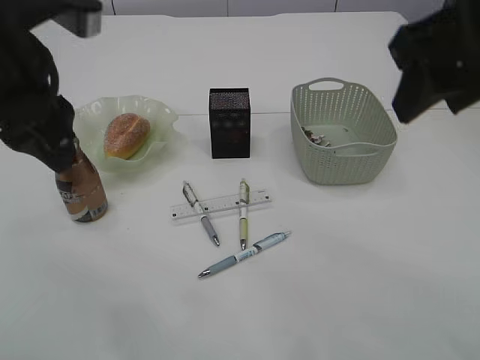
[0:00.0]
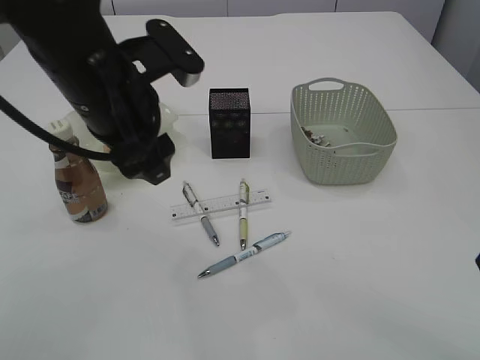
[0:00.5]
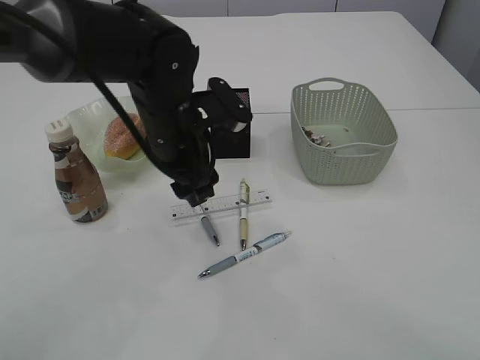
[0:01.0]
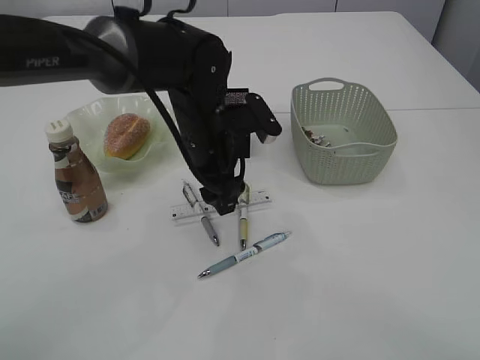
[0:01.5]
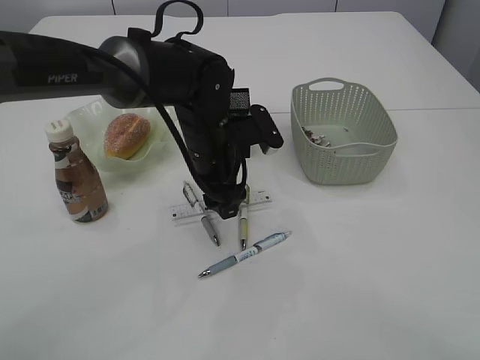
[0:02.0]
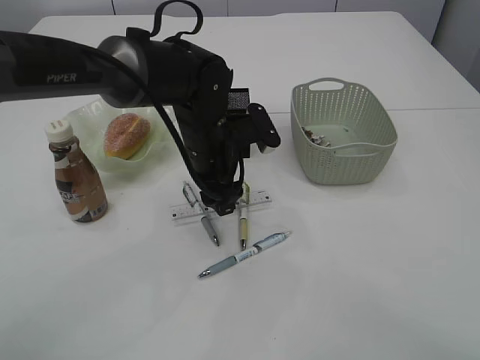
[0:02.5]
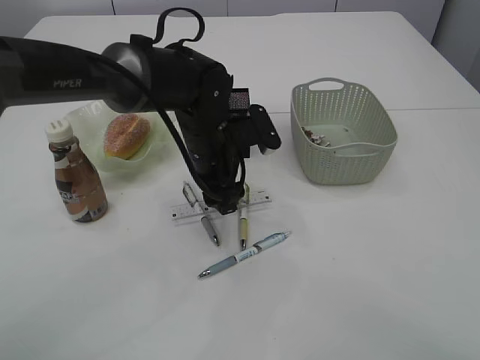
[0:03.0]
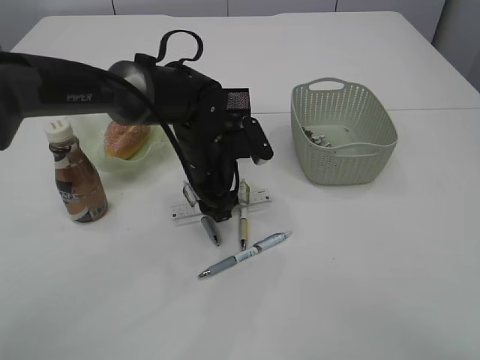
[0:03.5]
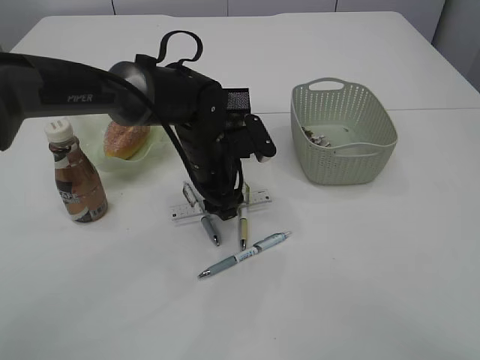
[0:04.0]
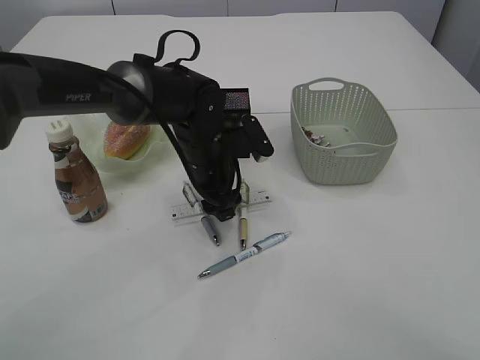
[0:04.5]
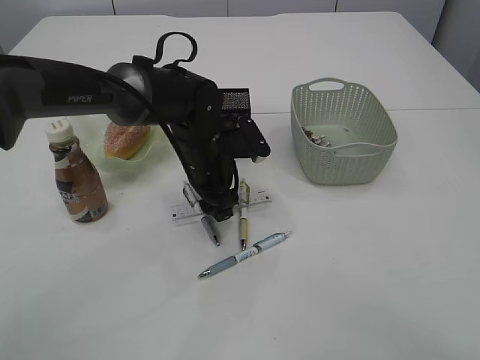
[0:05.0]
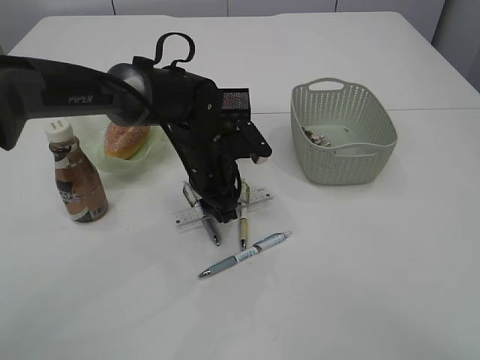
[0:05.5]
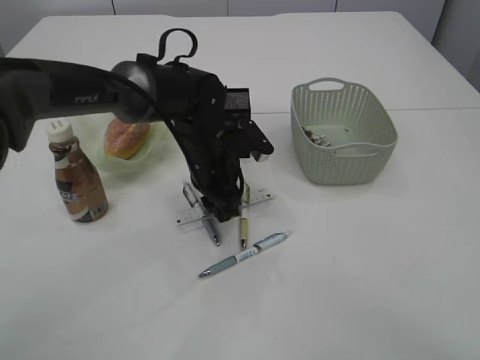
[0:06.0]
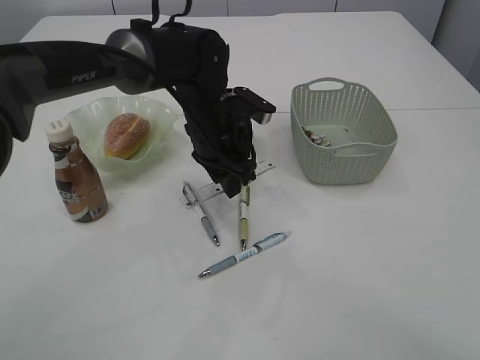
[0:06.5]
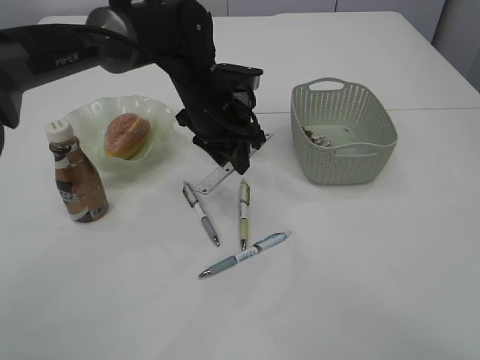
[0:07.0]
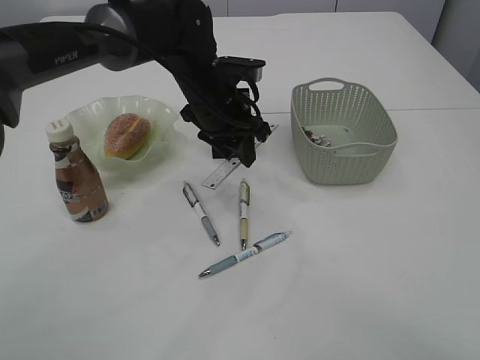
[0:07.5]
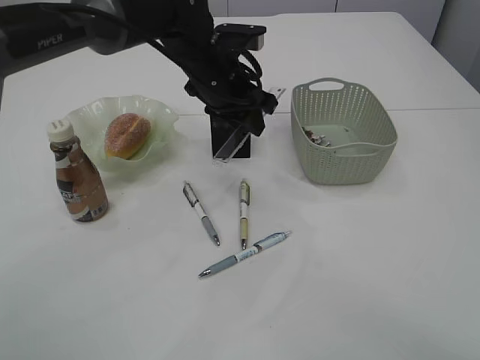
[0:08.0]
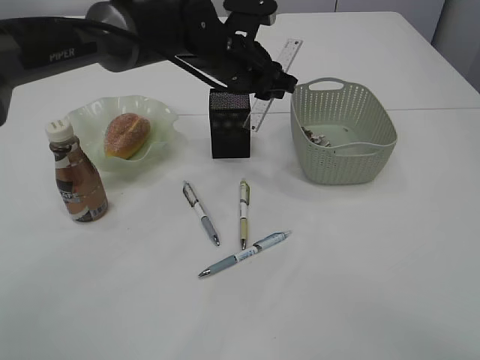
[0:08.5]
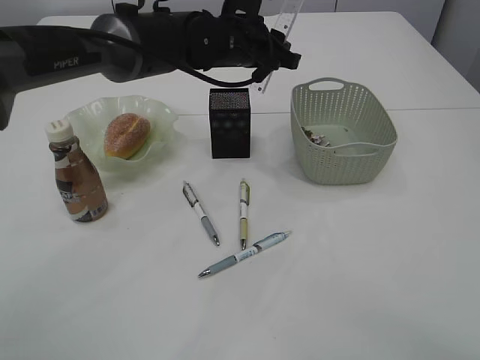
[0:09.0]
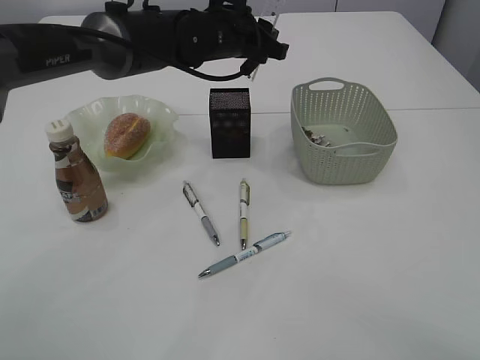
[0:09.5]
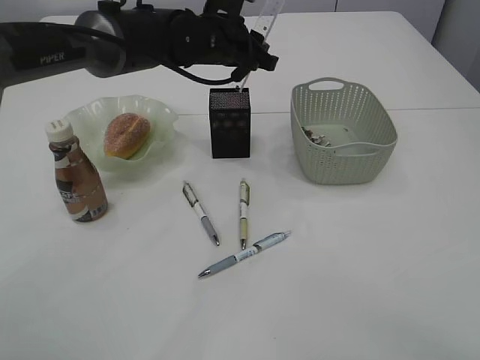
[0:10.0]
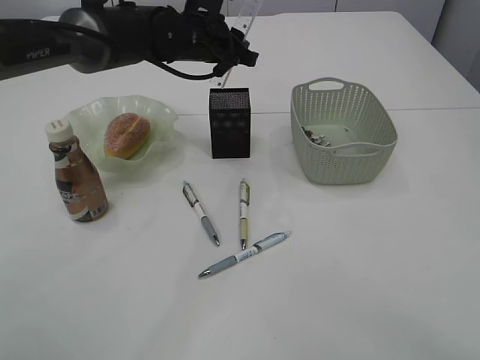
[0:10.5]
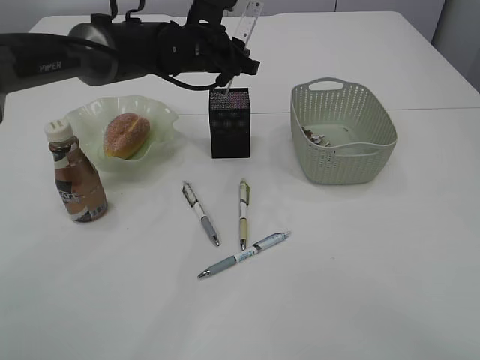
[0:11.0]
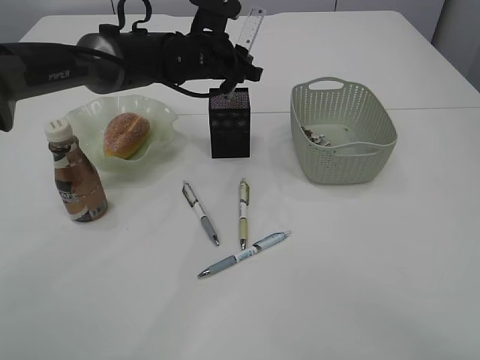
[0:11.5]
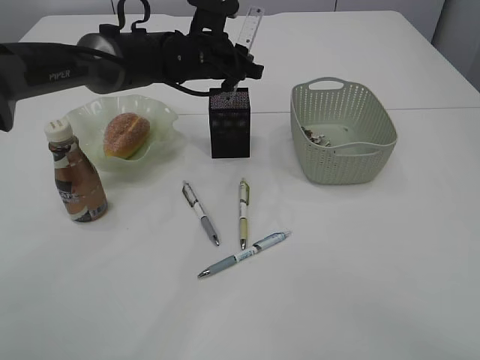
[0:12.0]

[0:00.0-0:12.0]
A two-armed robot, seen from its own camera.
Step, 0:00.0 to 0:06.5: pick up the ruler.
0:00.0 to 0:02.0: The right gripper shifts about 15 cm backward and to the right, while the left gripper shifts approximately 25 cm downward, to the right and forward.
0:02.0 to 0:04.0: There are only small adjustments of the grippers.
0:04.0 to 0:06.0: The left gripper closes its fingers.
0:06.0 to 0:08.0: The left gripper travels upward by approximately 10 cm.
0:10.0 to 0:12.0: The grippers stay close to where they were, moving slightly.

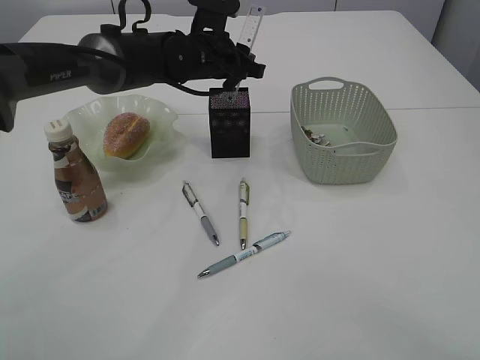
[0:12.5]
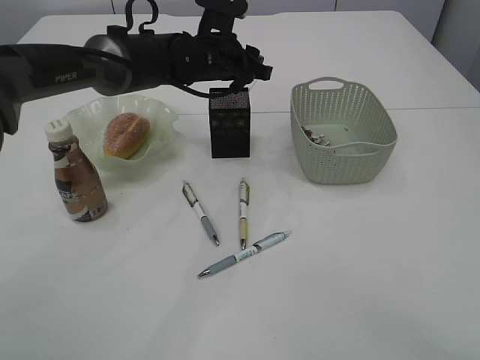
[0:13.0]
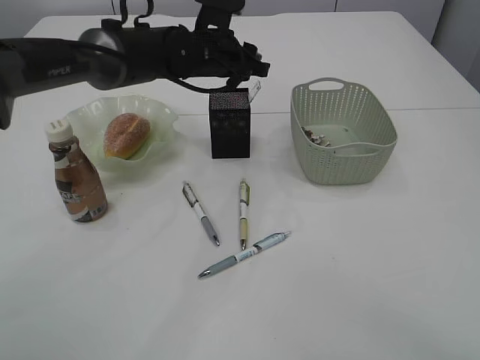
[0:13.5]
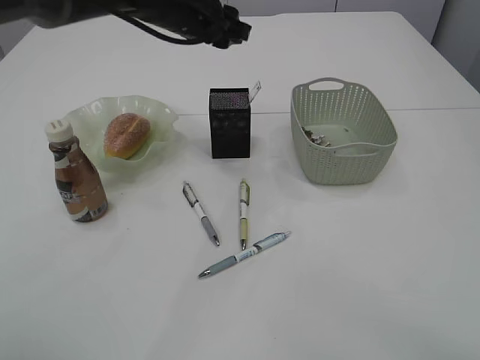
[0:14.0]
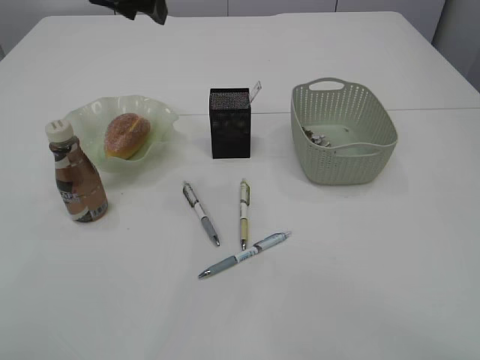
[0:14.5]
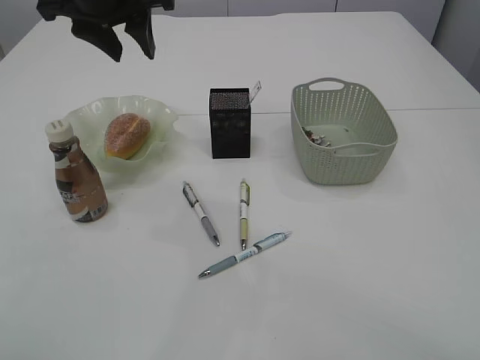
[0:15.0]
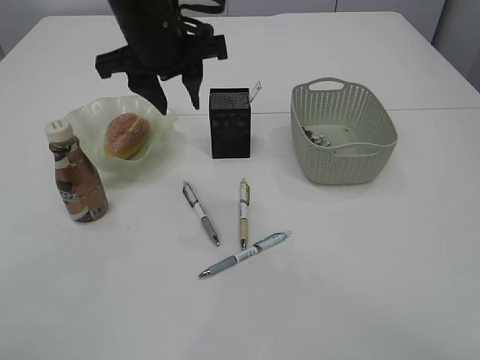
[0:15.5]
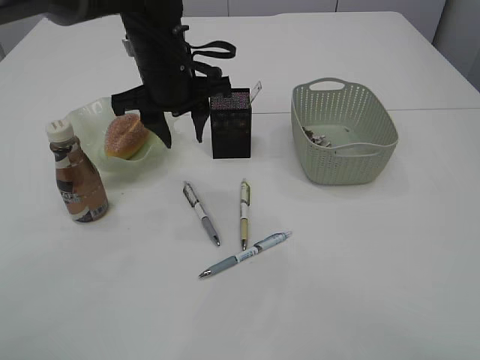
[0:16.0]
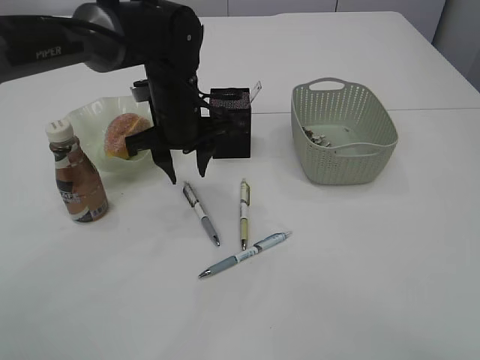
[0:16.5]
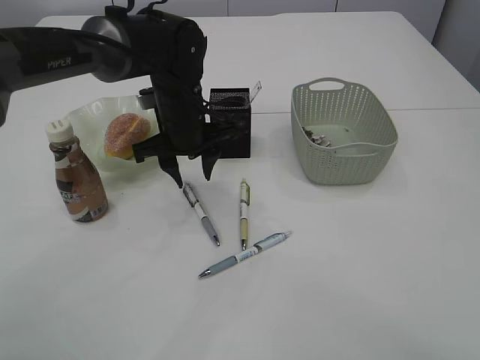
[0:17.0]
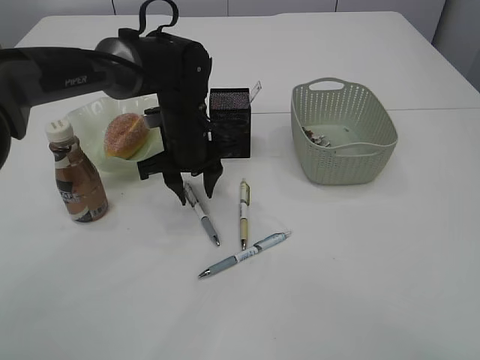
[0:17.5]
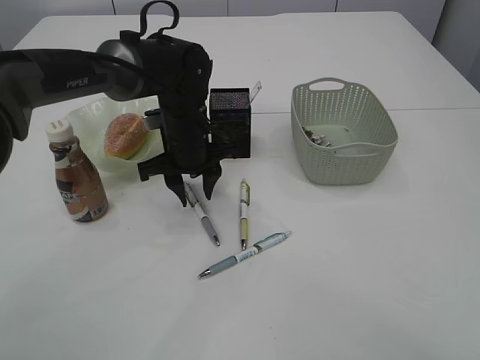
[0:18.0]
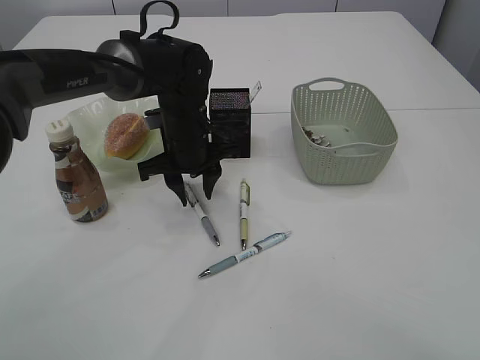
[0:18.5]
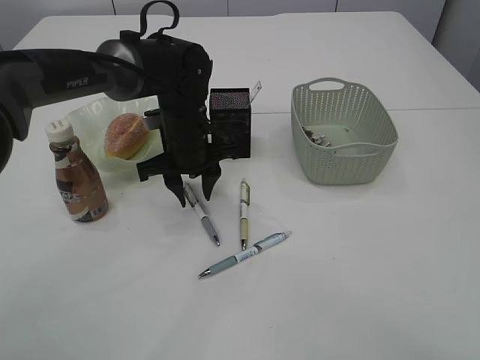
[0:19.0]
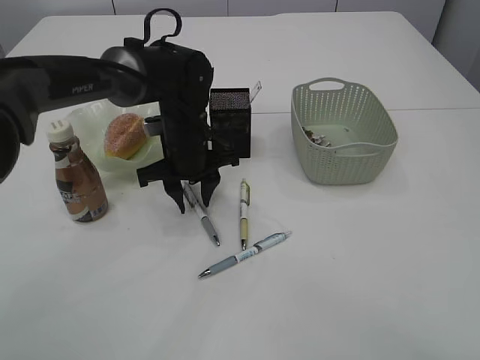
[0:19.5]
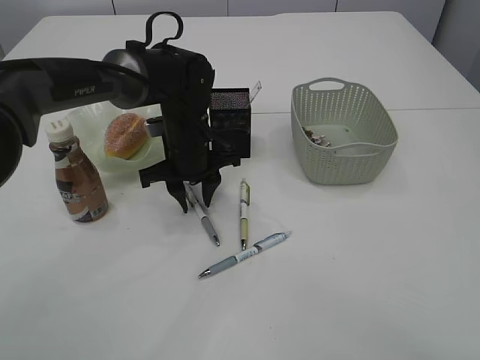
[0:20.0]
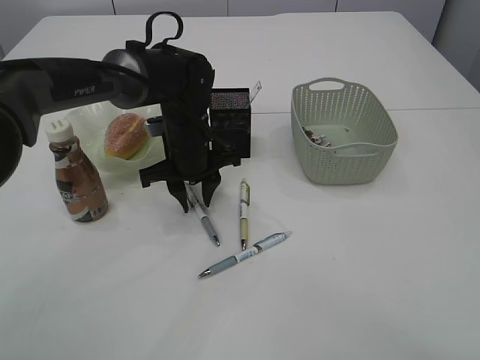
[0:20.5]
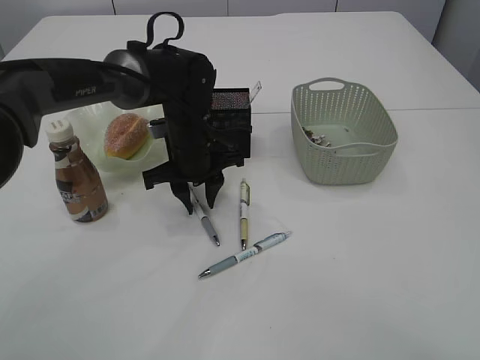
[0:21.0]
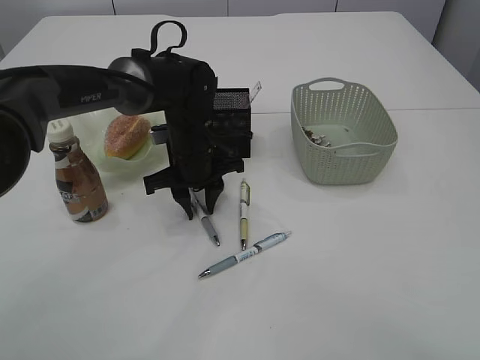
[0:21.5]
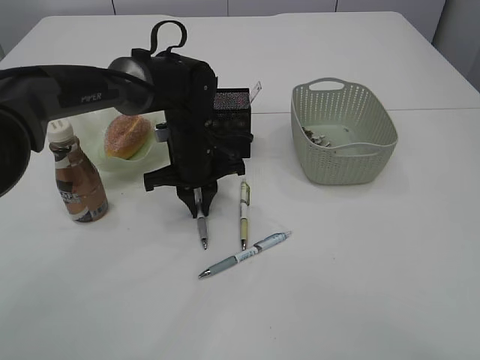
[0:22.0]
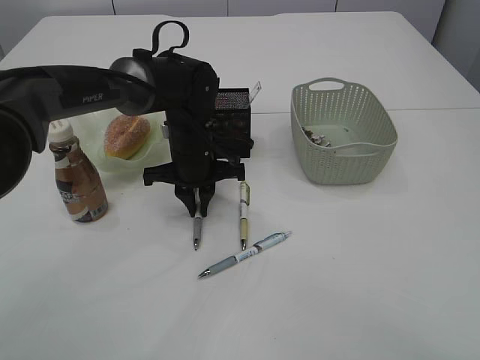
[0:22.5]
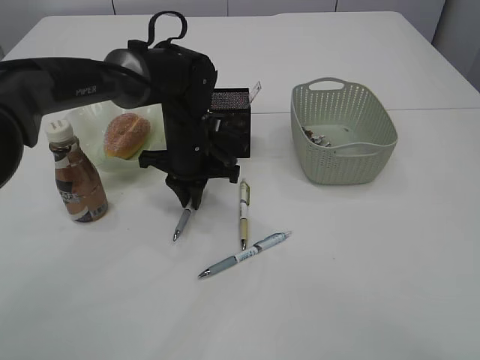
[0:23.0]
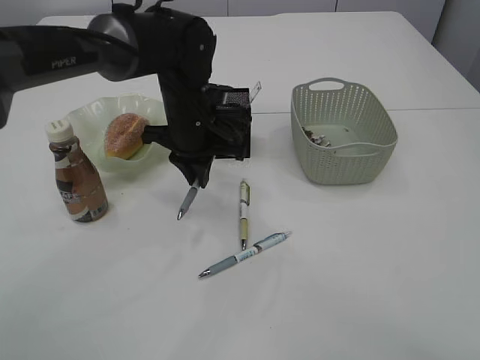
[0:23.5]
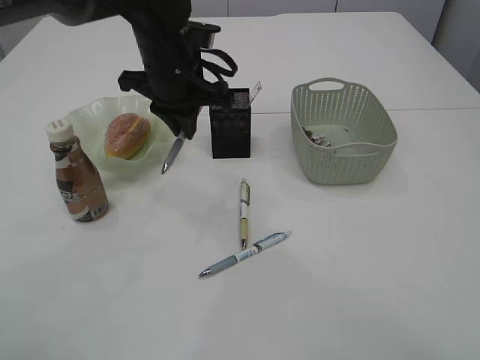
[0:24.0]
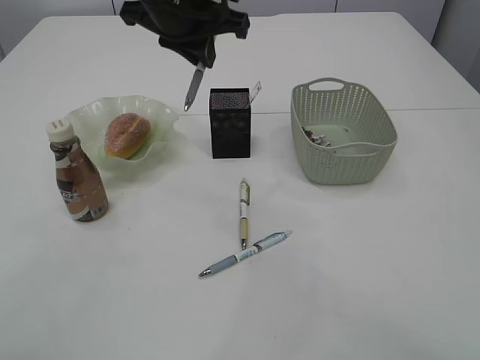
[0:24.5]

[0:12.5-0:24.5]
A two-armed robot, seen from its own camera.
Step, 0:14.0 to 0:23.5: Pick up the pen with left arm.
0:12.5 to 0:14.5: The left gripper goes some 20 cm upward, to the left and backward.
0:14.5 to 0:16.5: The left gripper goes some 15 cm downward.
0:16.5 to 0:18.5: The grippers move only a little.
0:18.5 to 0:20.5: The two grippers keep their place.
0:20.5 to 0:22.5: The left gripper closes up.
0:22.5 to 0:24.5: The left gripper is displaced upward by roughly 20 cm.

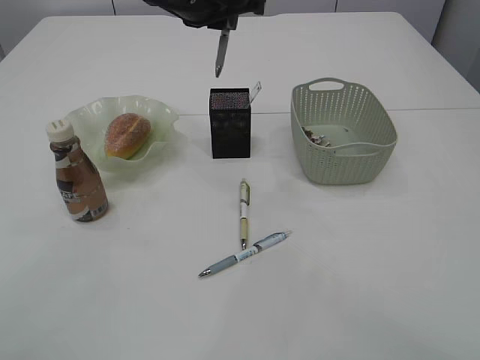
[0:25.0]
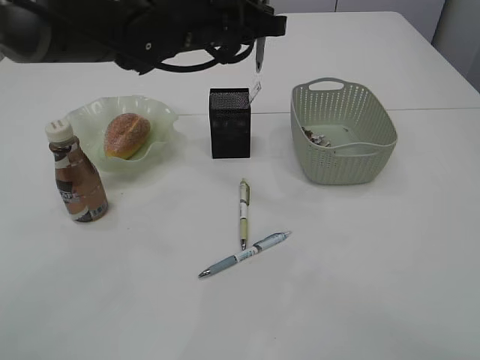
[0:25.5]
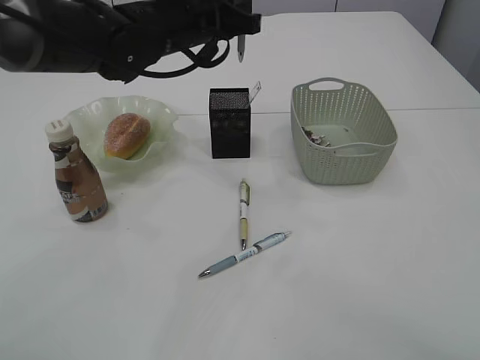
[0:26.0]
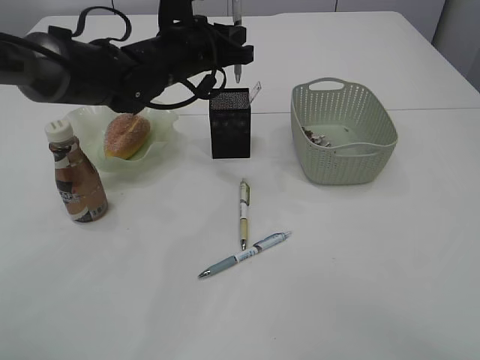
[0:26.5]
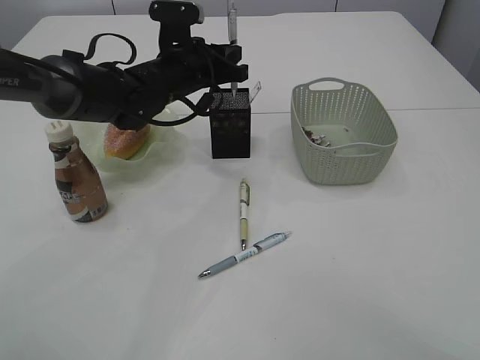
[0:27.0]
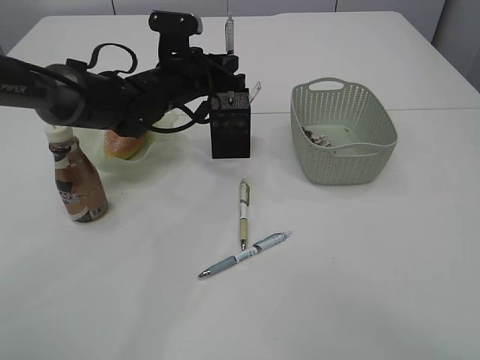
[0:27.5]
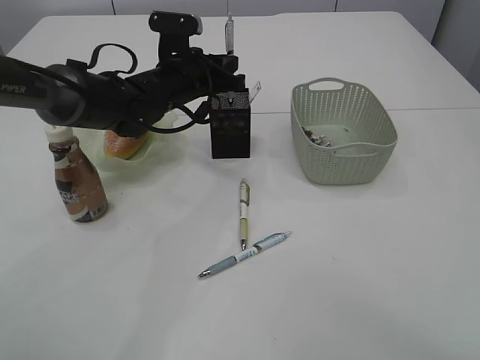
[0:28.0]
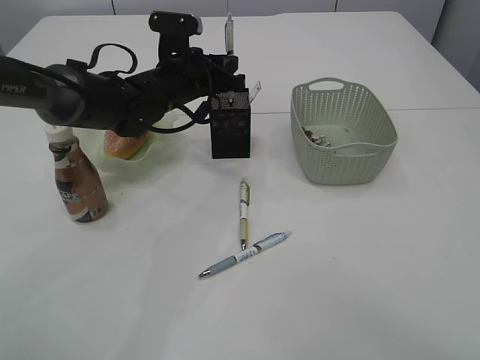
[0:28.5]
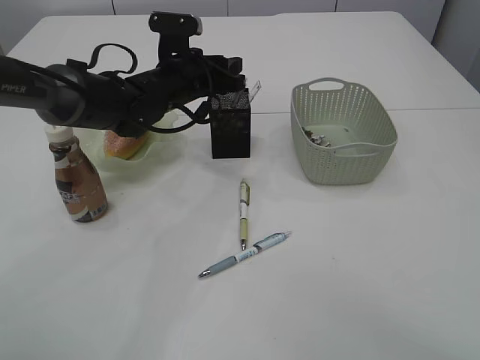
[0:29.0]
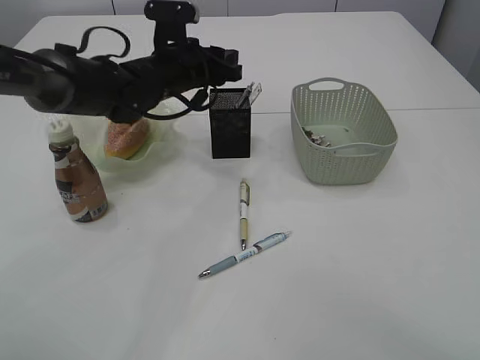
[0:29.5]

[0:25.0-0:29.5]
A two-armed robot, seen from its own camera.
0:25.0 to 0:27.0: The left gripper travels downward and forward by roughly 15 cm.
0:27.0 to 0:29.5: The left gripper opens.
